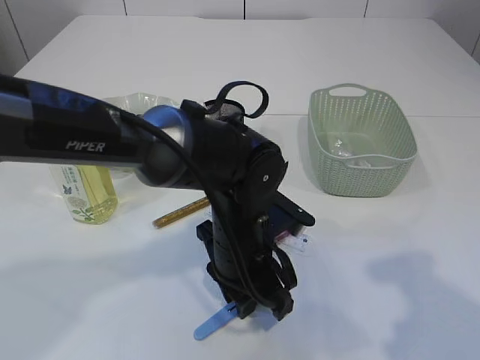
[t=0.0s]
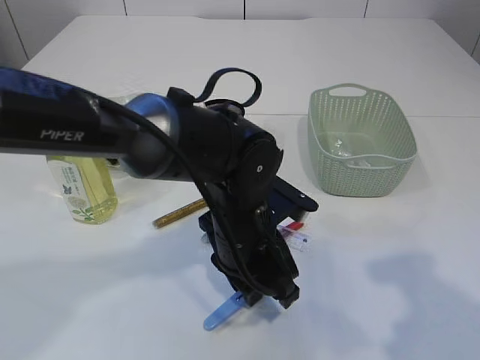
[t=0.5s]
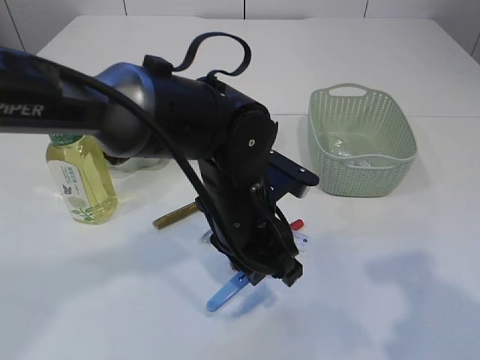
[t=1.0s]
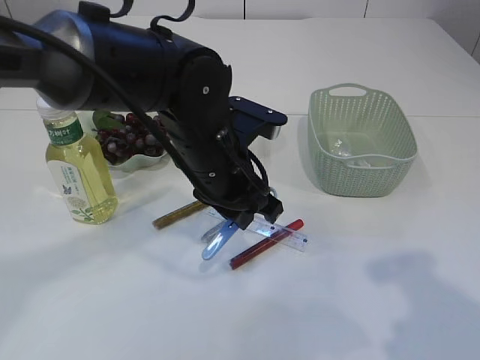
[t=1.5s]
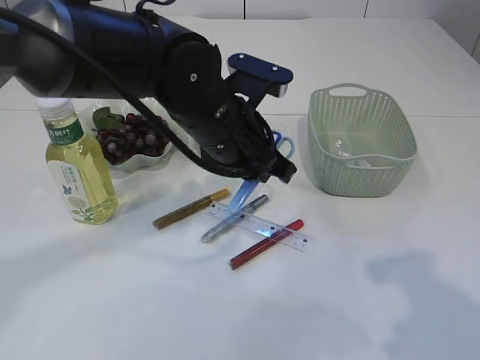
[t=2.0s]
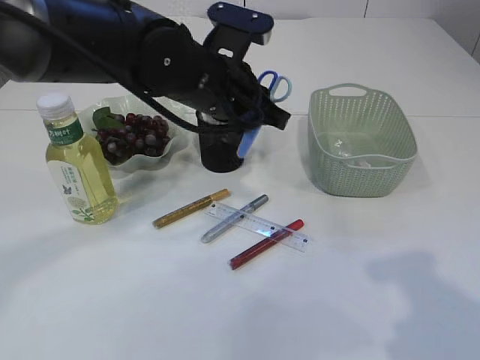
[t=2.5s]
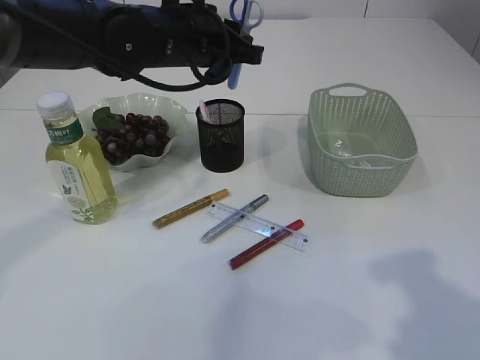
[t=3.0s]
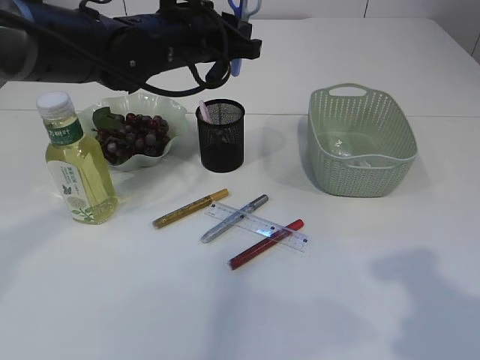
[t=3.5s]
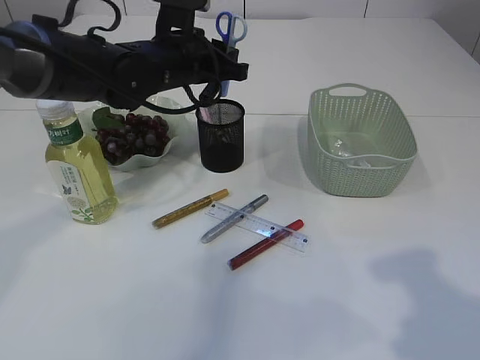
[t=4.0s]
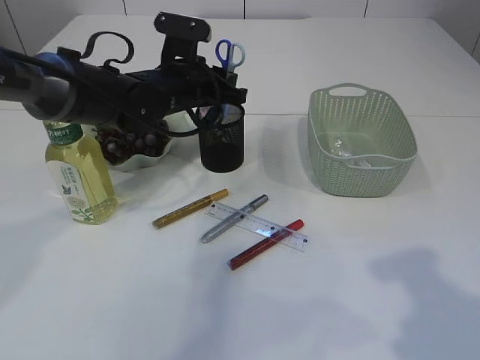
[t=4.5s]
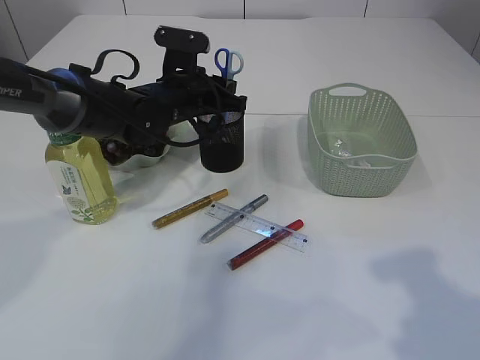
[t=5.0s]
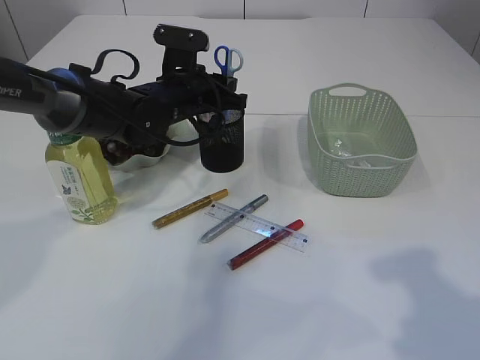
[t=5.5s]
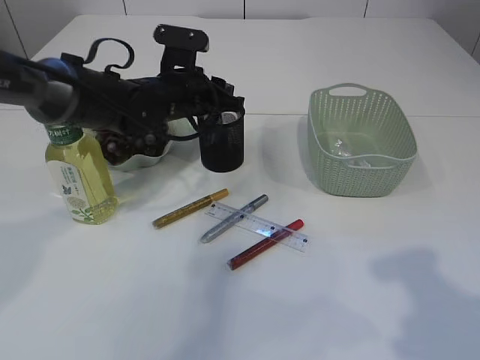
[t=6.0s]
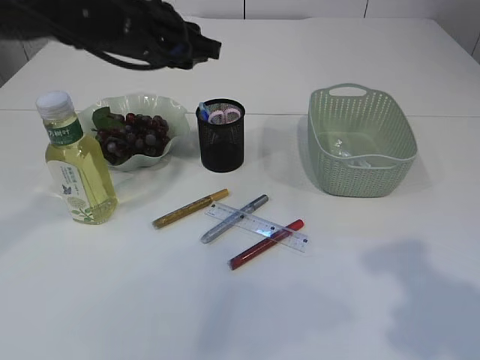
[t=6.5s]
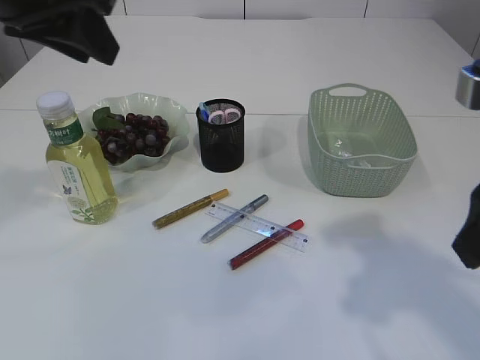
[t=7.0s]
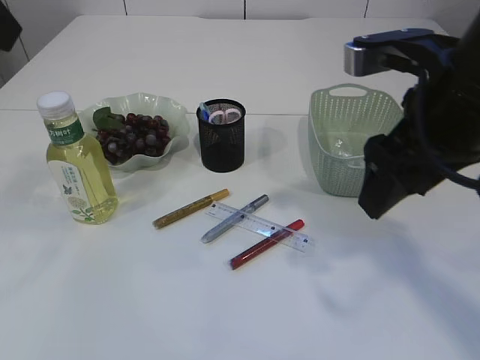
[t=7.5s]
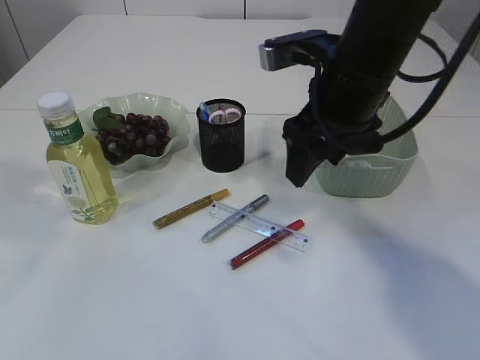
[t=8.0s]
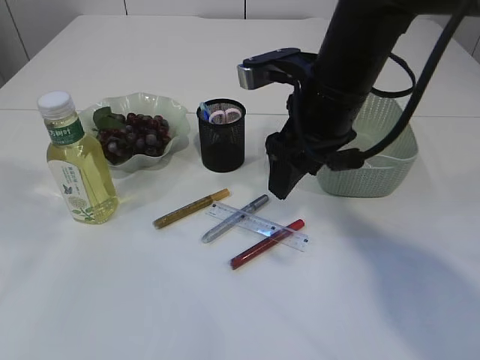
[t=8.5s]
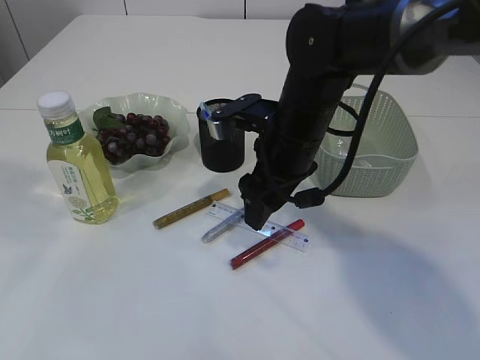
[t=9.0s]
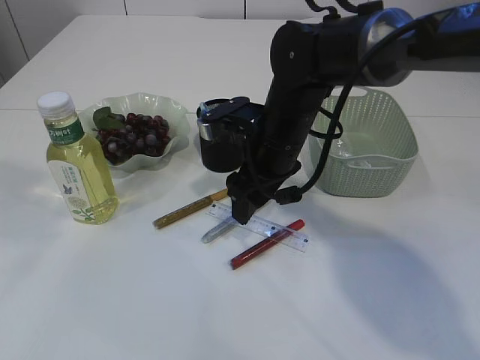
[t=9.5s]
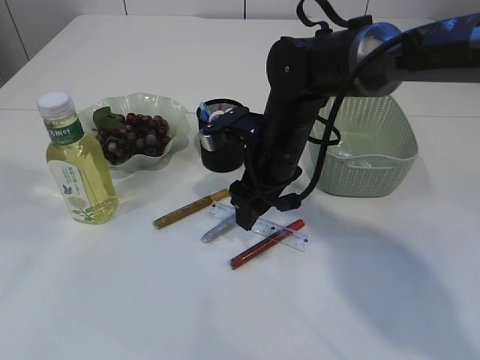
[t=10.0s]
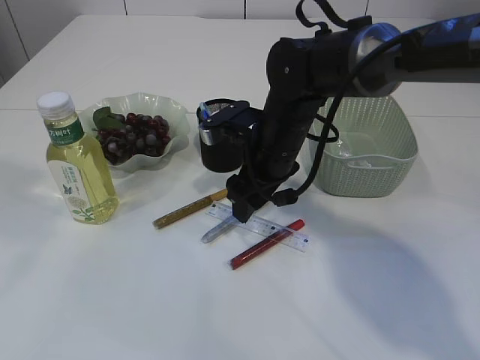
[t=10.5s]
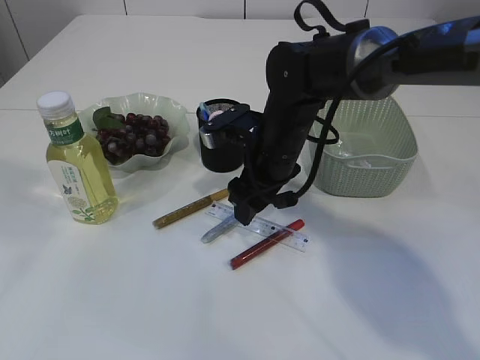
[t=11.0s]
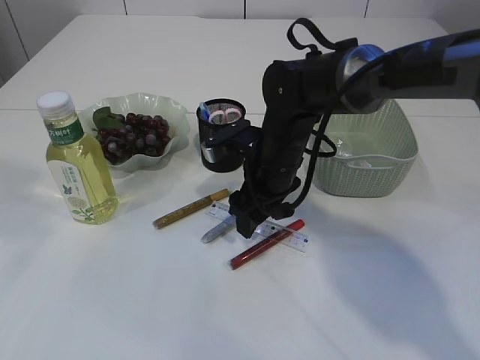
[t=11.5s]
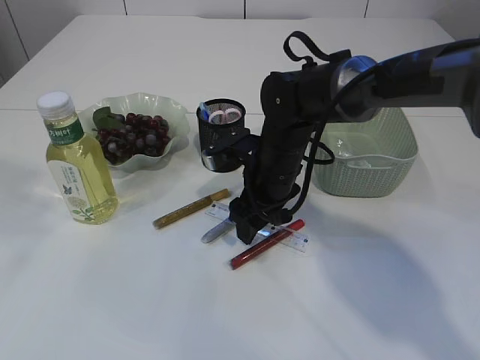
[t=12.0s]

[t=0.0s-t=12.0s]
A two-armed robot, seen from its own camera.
Step, t=1.5s to t=6.0s: Place the blue scissors into the pen holder.
t=0.0s to t=2.0s: The left gripper travels upward and forward by approximately 10 cm.
t=2.0s to t=4.0s: The left gripper moves forward and to the left, approximately 15 cm.
t=4.0s to t=6.0s: The left gripper heads downward, covering roughly 5 cm.
t=6.0s to t=8.0s: The right gripper moves forward and to the left, roughly 25 cm. Meanwhile the left gripper moves upward, backward and to the left, roughly 40 cm.
t=8.0s to t=10.0s: The right gripper heads downward, to the left and forward, covering about 15 cm.
t=10.0s to t=12.0s: The grippers move only a little.

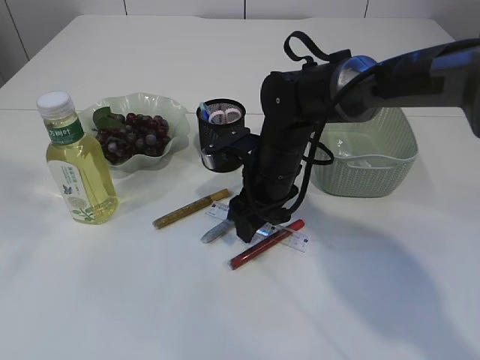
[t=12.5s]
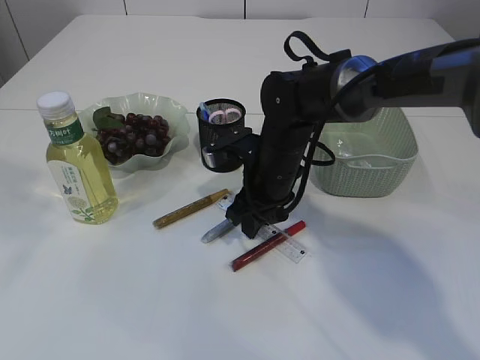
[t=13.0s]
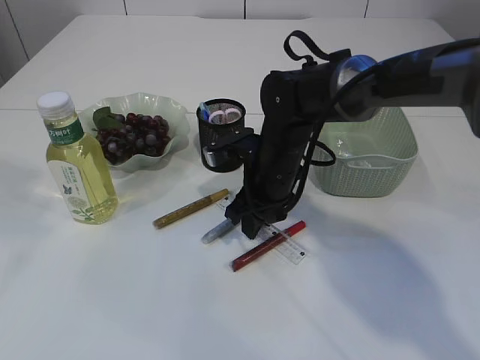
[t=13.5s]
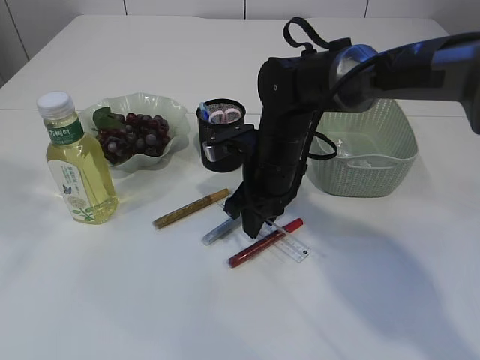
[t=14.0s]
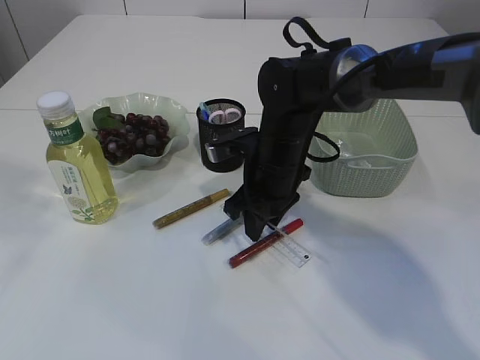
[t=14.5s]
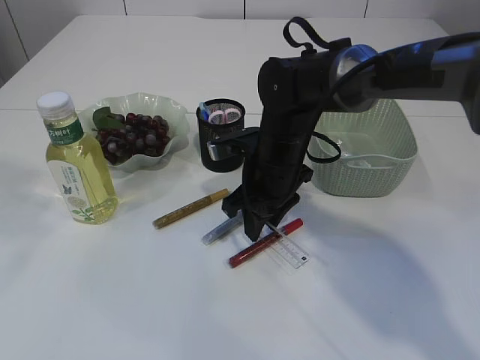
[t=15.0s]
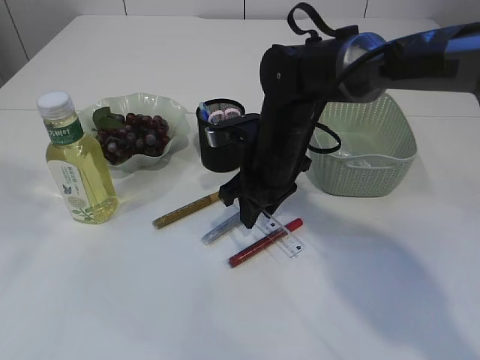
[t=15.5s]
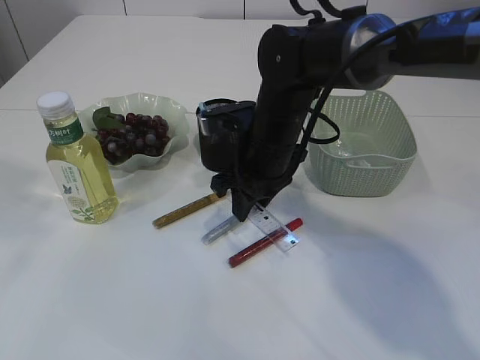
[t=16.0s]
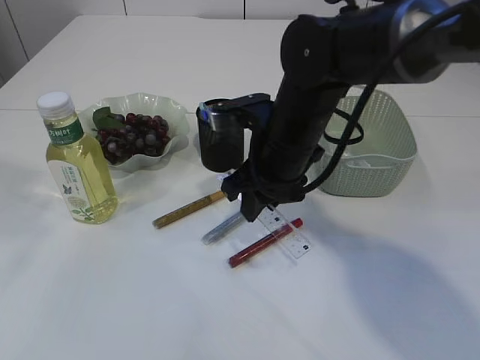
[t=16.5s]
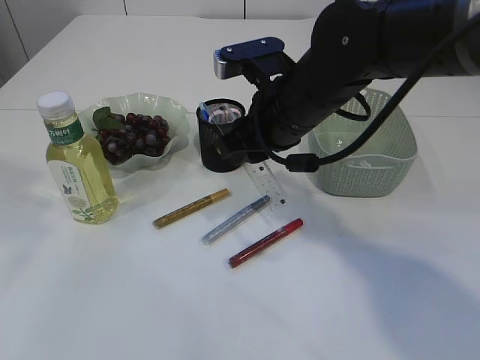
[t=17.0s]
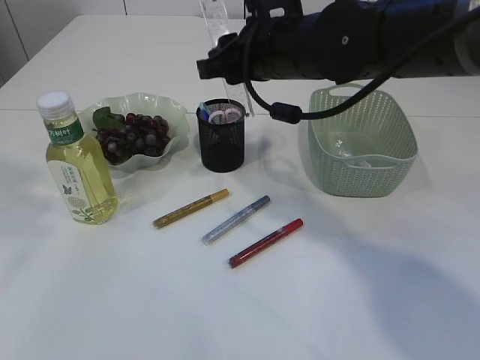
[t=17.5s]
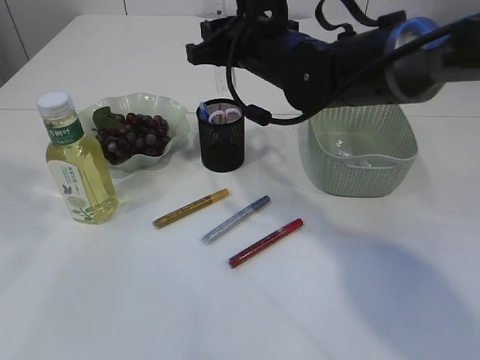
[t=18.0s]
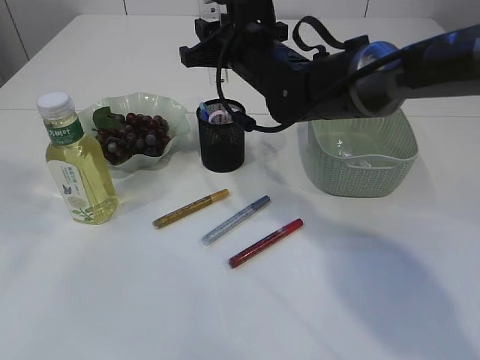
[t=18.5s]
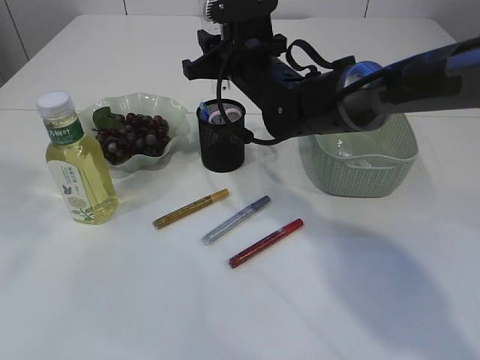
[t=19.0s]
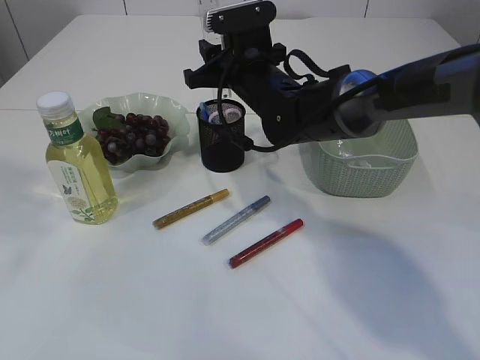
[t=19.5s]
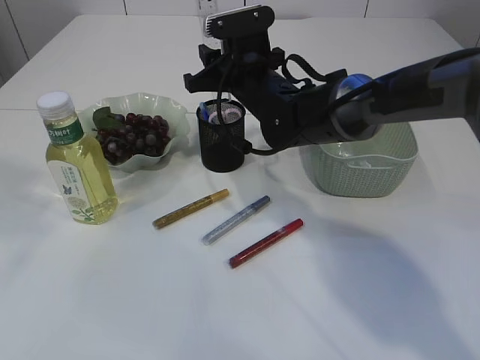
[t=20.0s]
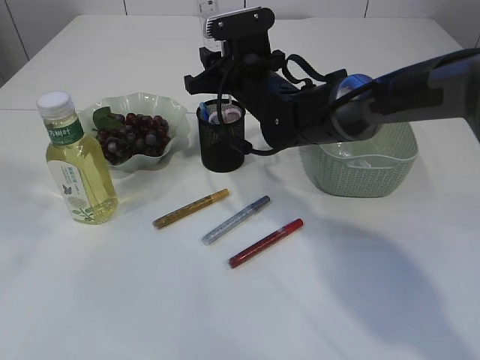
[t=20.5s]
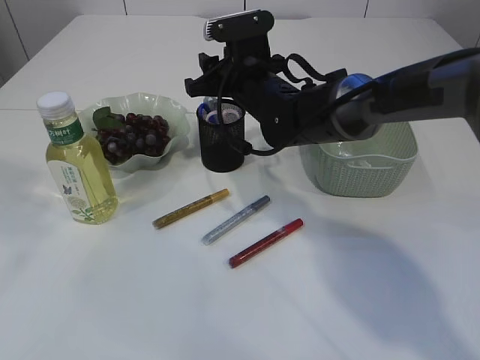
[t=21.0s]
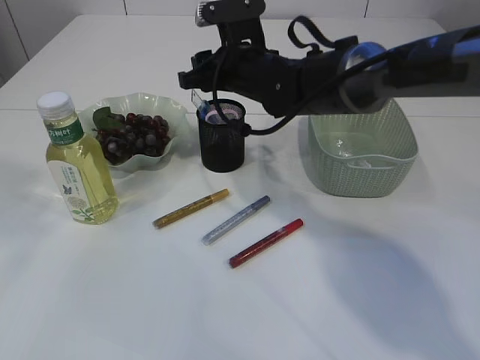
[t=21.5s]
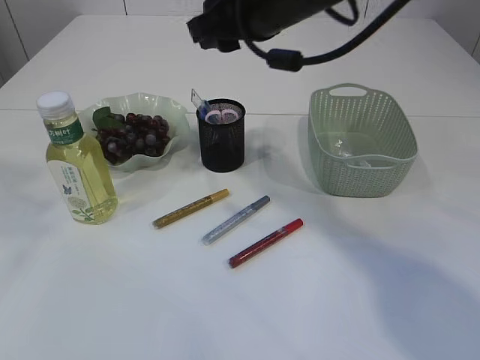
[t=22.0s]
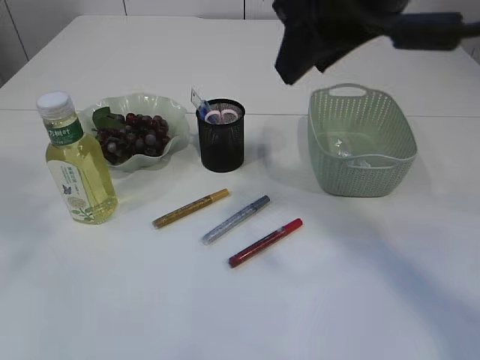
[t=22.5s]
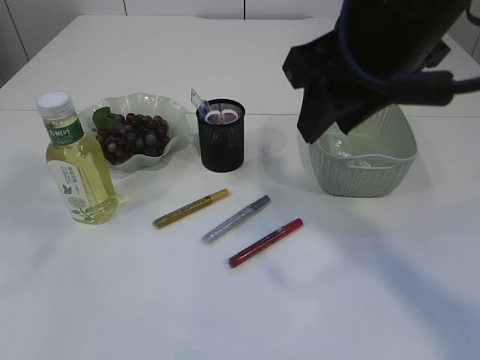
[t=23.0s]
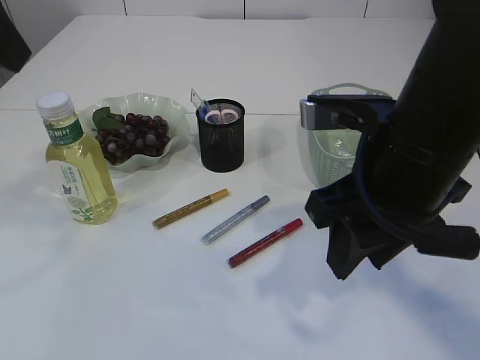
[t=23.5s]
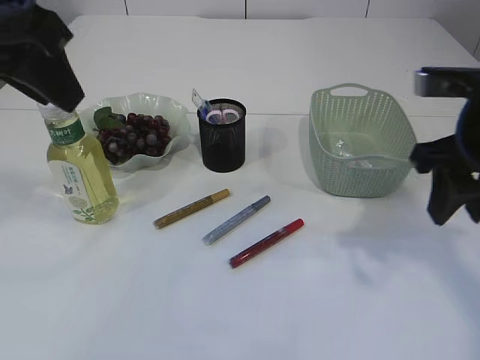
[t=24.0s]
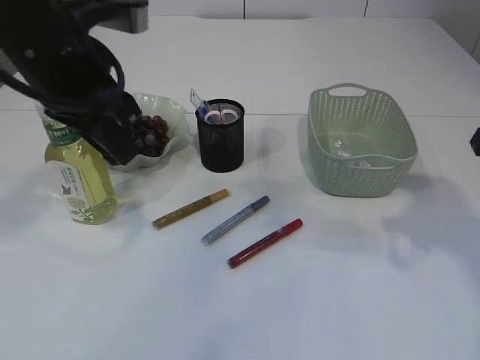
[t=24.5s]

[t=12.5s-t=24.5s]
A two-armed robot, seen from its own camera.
Step, t=12.5s to t=16.0s: pick up the ruler.
Step, t=16.5s to t=21.5s: Place the ruler into the pen holder.
t=12.5s to t=14.5s: The right gripper closes up.
t=14.5s to t=16.5s: The right gripper heads upward, covering about 5 cm.
t=16.5s to t=18.5s: The right gripper shifts some 10 cm forward.
t=18.5s to t=20.5s: The grippers move only a little.
t=20.5s to t=22.5s: The right gripper heads upward and backward, covering some 25 cm.
t=22.5s to t=24.5s: The left gripper shifts about 20 cm downward, forward and to the right, while the right gripper is displaced to the right and downward by about 20 cm.

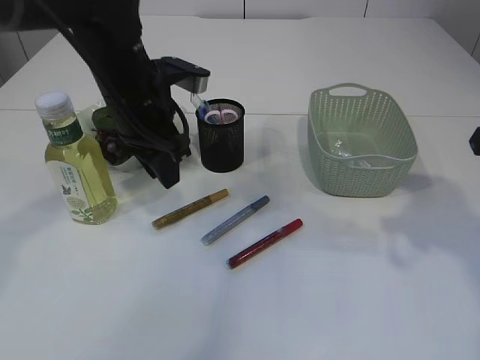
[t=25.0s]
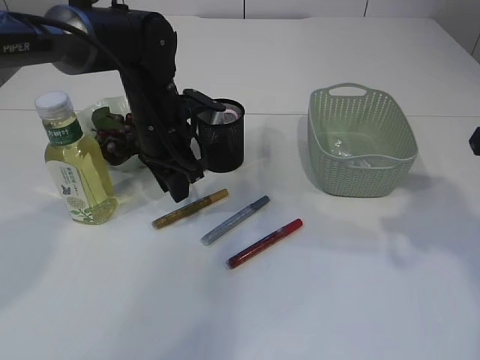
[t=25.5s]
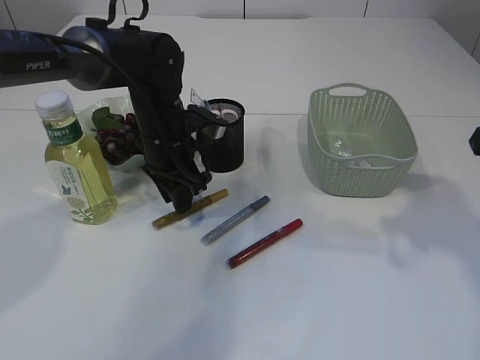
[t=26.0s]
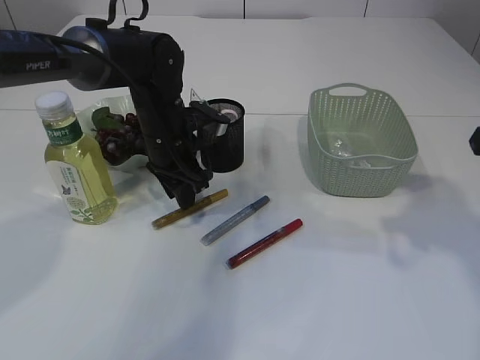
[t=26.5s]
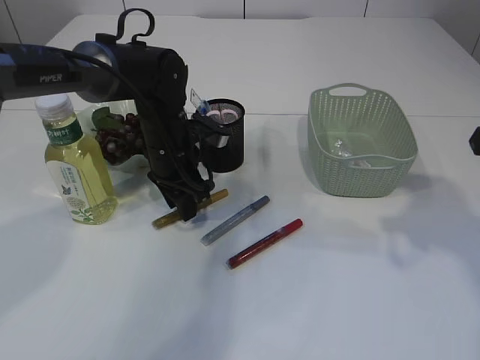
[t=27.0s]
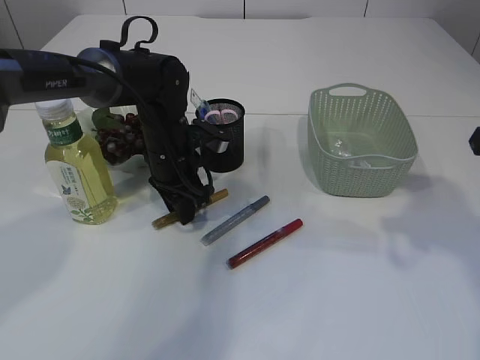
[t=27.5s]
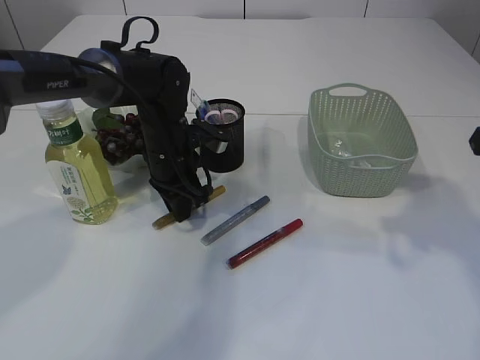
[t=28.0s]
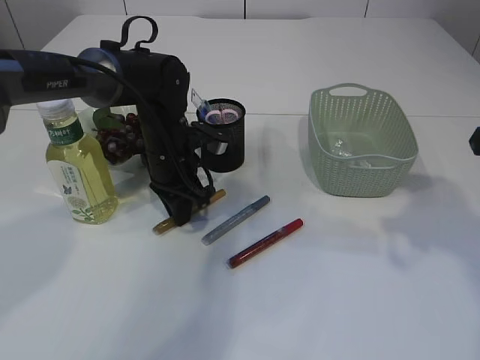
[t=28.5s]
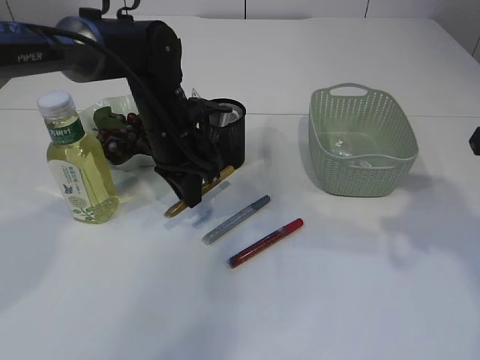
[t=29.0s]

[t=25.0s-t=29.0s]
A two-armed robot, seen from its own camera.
t=25.0s to t=27.0s: The left gripper shifts roughly 10 cm downward.
t=27.0s to t=29.0s: The left gripper closes up.
